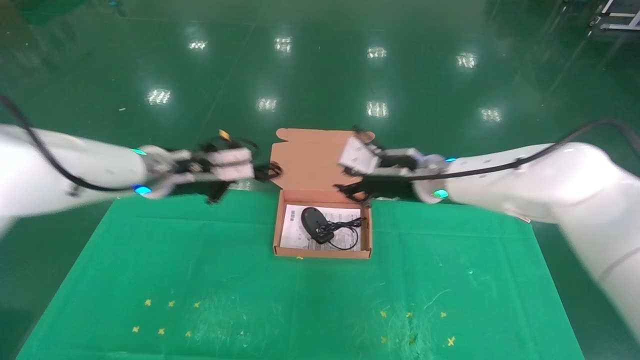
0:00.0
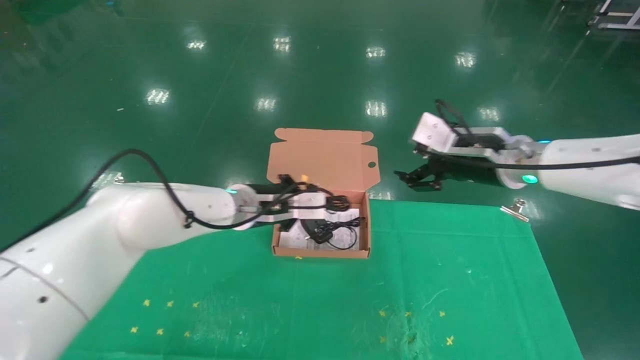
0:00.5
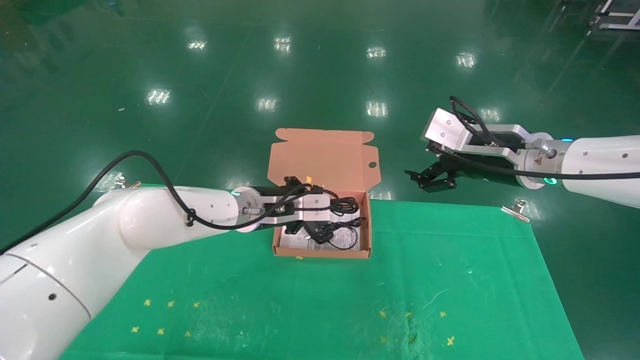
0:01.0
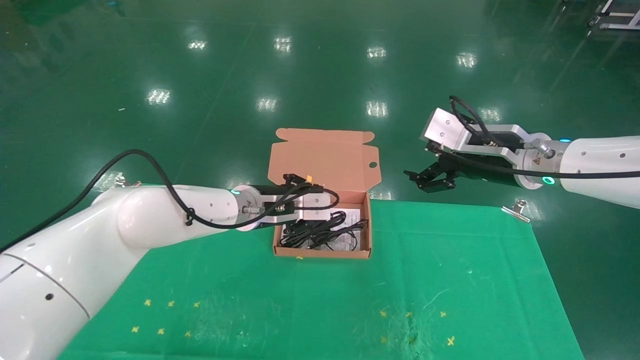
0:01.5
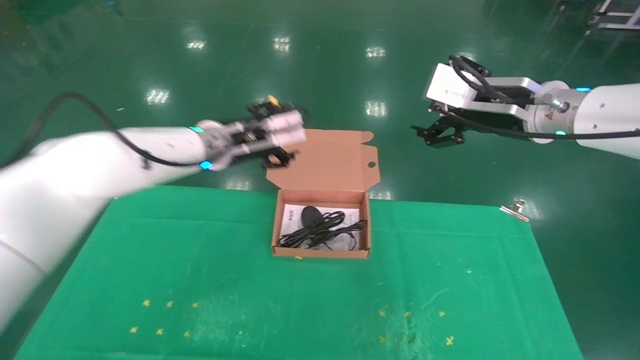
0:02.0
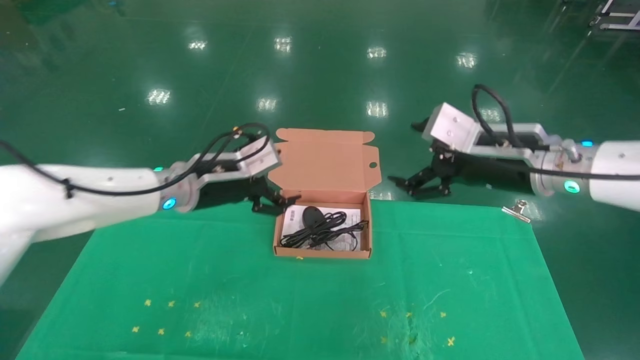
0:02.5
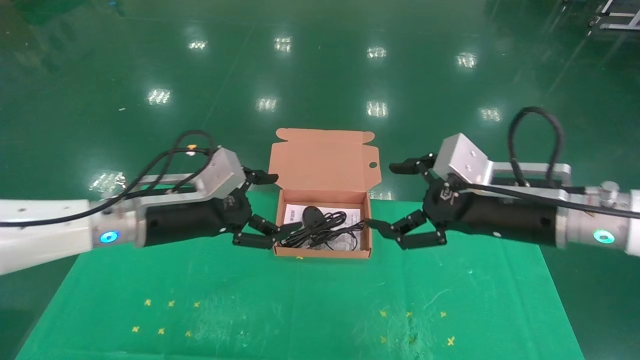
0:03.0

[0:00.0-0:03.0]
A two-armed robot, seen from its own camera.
Task of the whole recording: grasp data cable left put into box grasp mouse right put into box.
Step, 0:00.0 to 0:02.0: Place the mouse and power cord into the box.
0:00.0 to 0:01.5: The left gripper travels to the right by about 10 cm, while the right gripper goes some 15 cm to the right, backward and upward, and opens up.
0:01.5 to 0:03.0: The right gripper shifts some 10 cm backward and downward; the left gripper goes roughly 15 cm to the left and backward, and opens its fingers.

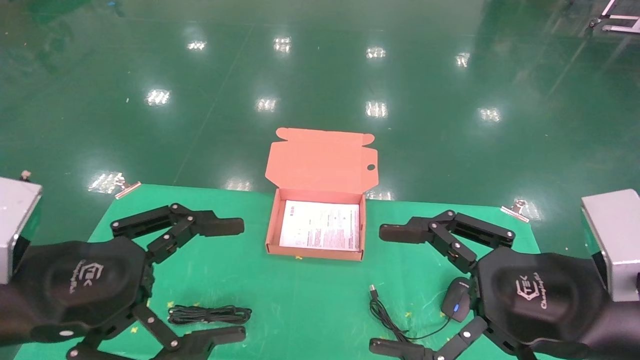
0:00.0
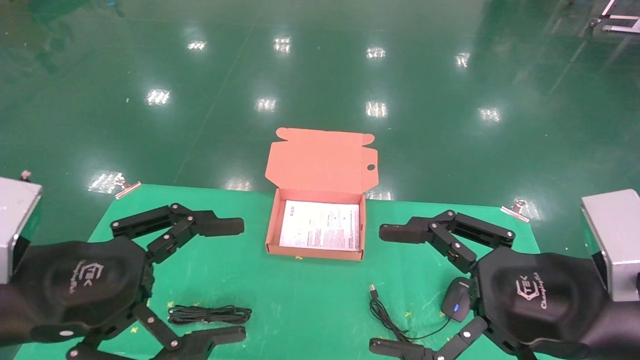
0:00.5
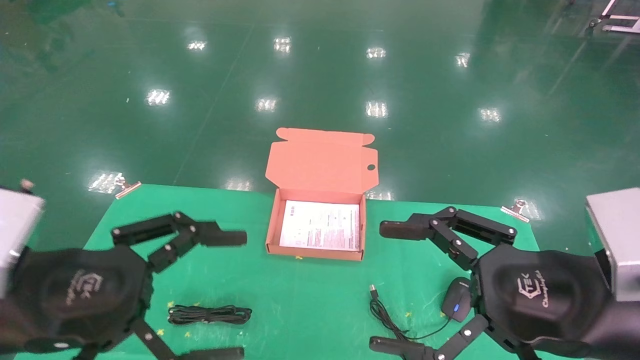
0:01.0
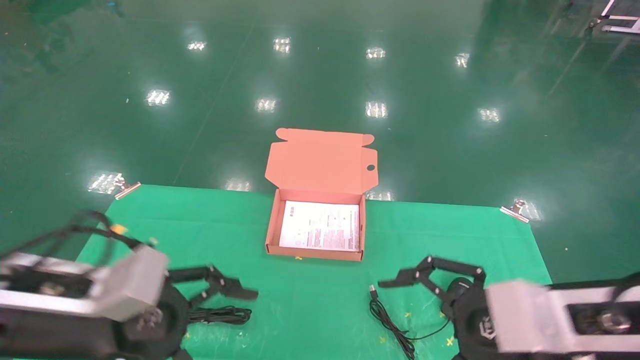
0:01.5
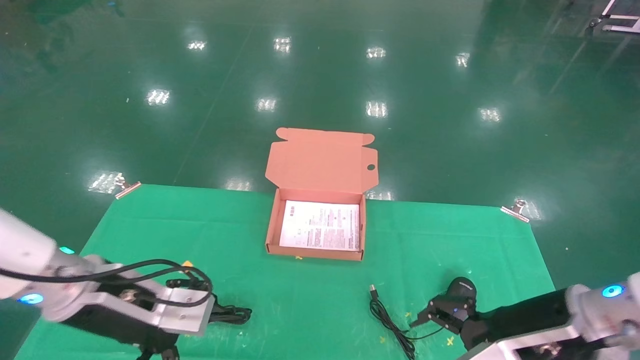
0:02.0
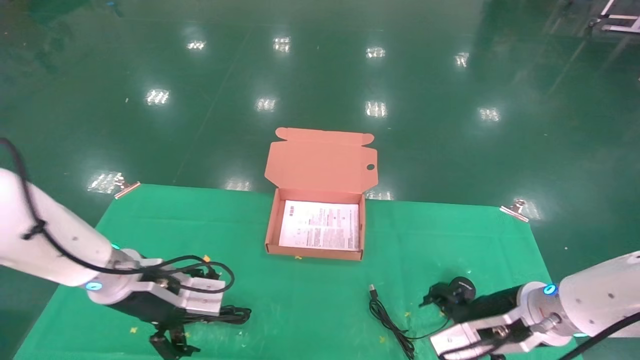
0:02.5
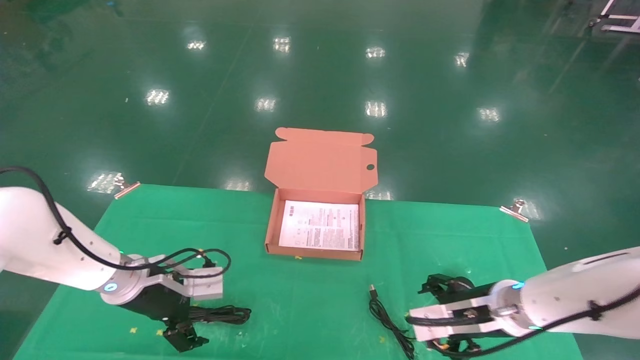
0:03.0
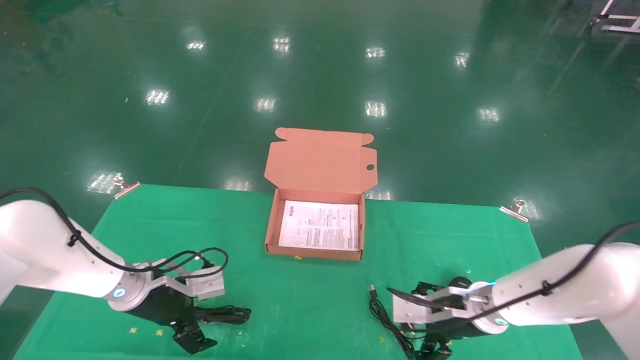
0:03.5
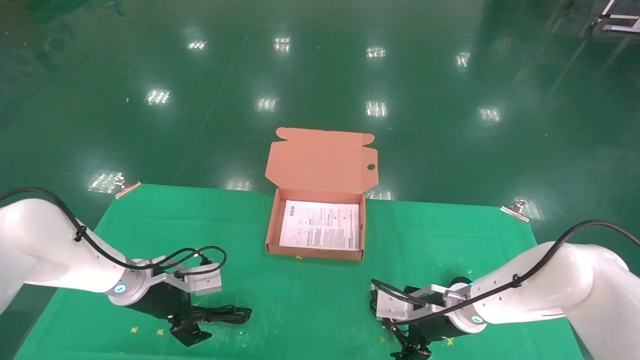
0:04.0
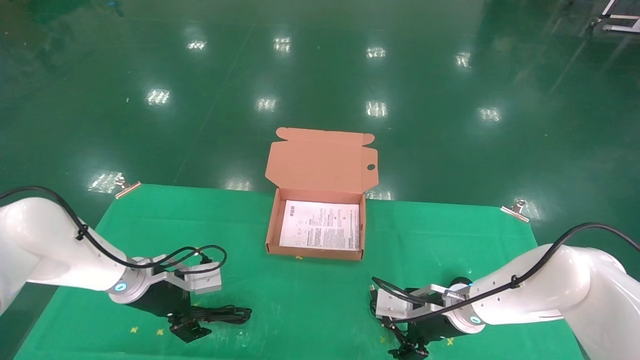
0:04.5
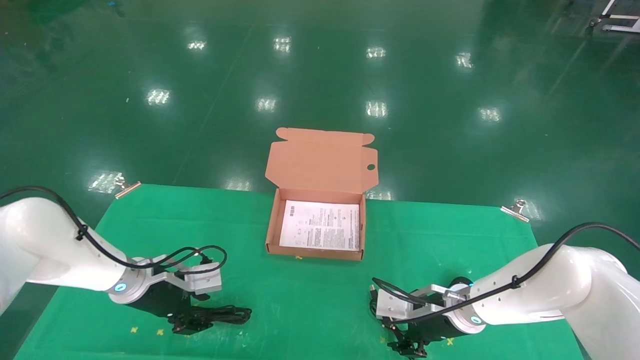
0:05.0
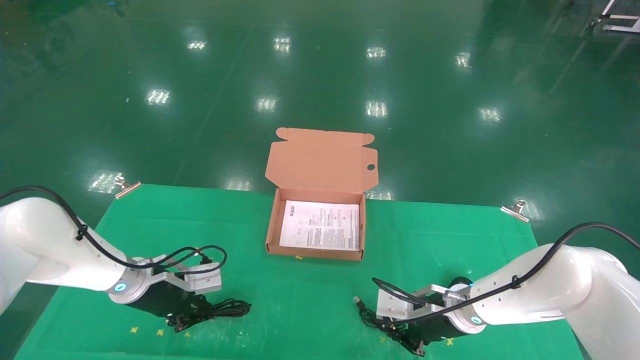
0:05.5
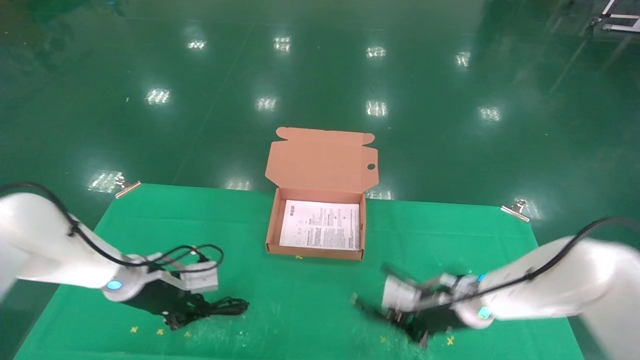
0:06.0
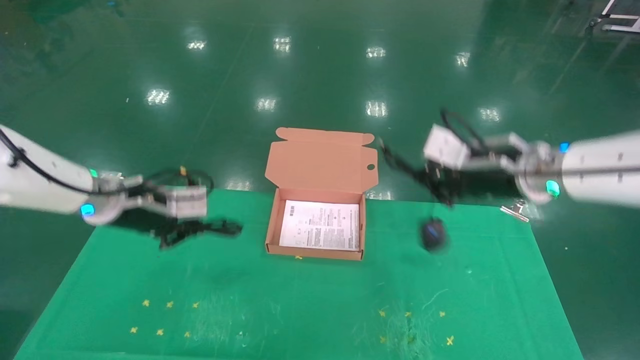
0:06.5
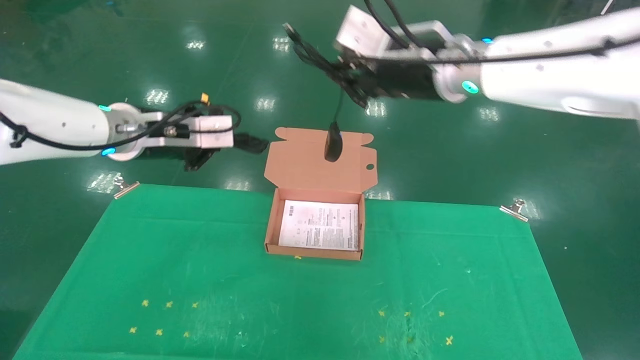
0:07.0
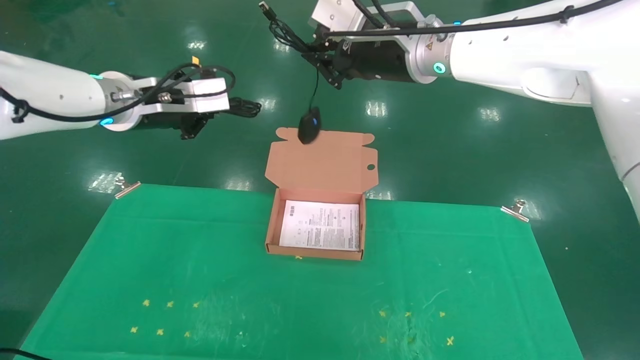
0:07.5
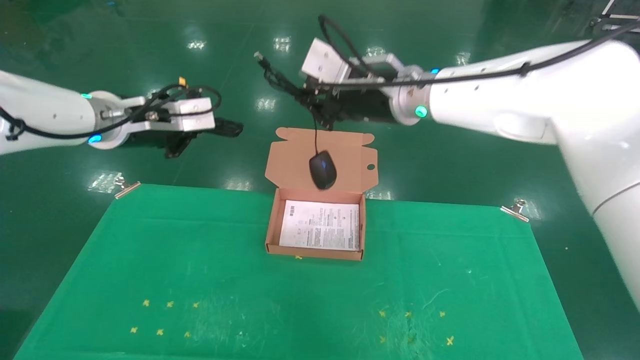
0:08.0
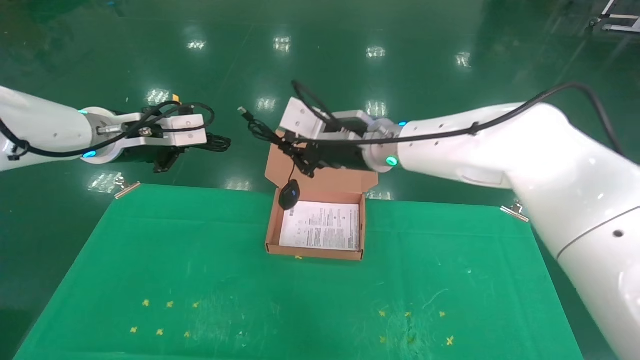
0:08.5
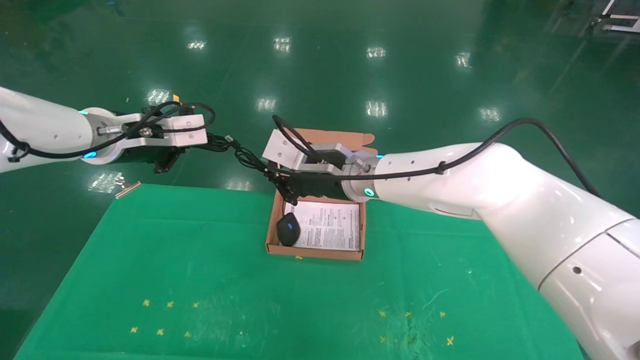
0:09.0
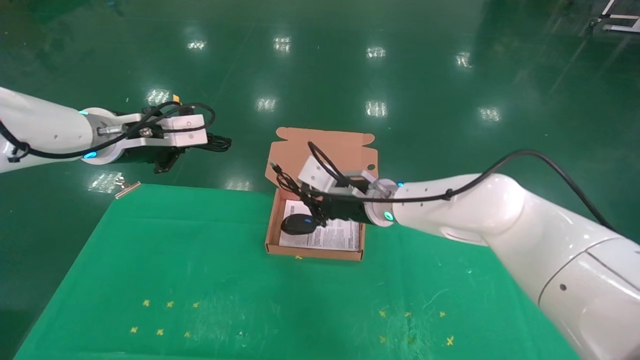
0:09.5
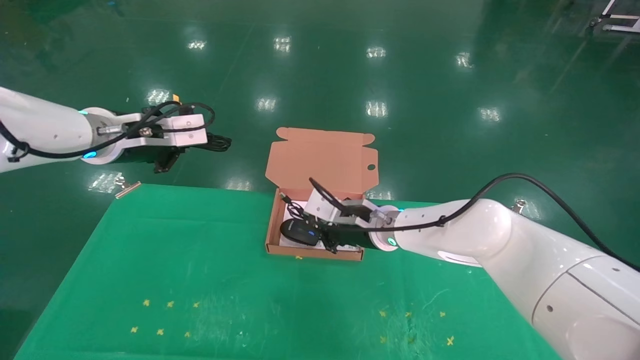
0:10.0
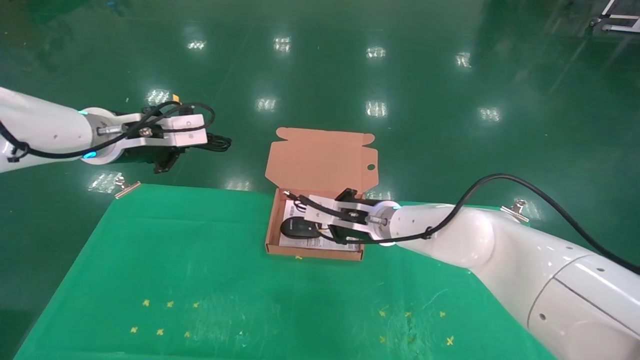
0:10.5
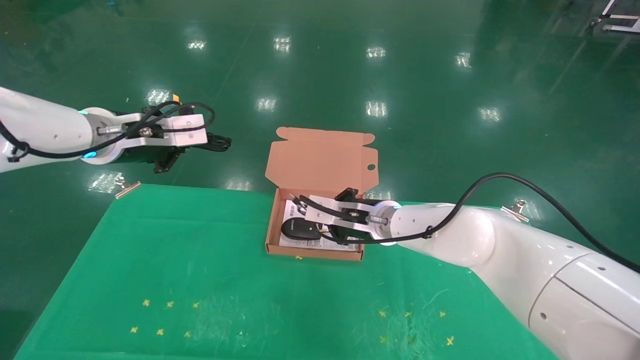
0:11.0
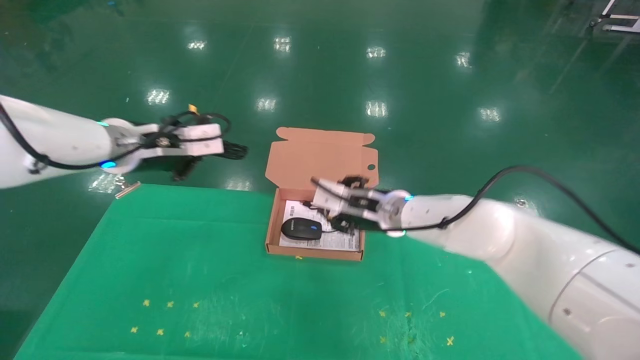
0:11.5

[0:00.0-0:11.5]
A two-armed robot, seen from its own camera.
Task of the whole recording: grasp data cable left put into box grasp mouse right put into box.
Step, 0:01.0 to 0:06.0: Grab and pick up both the mouse and power cord from the accessory packaging area at the same time.
0:00.0 to 0:02.0: Both grippers move forward and downward, roughly 10 cm.
0:02.0 to 0:04.0: Both grippers move forward and downward, some 15 cm.
0:04.0 to 0:06.0: The right gripper closes; the left gripper closes its fingers.
0:06.0 to 0:07.5: Both grippers move upward, about 30 cm.
0:07.5 to 0:09.5: The right gripper heads downward, covering about 20 cm.
0:09.5 to 0:11.5: The right gripper opens up.

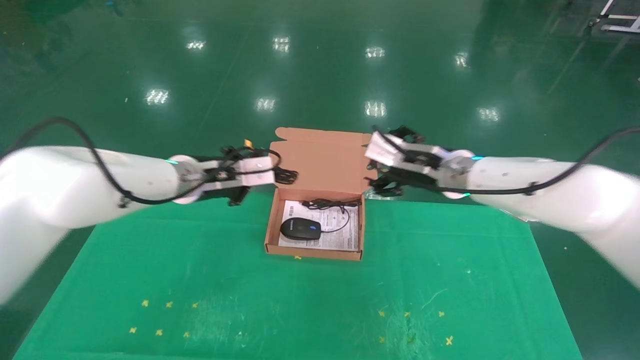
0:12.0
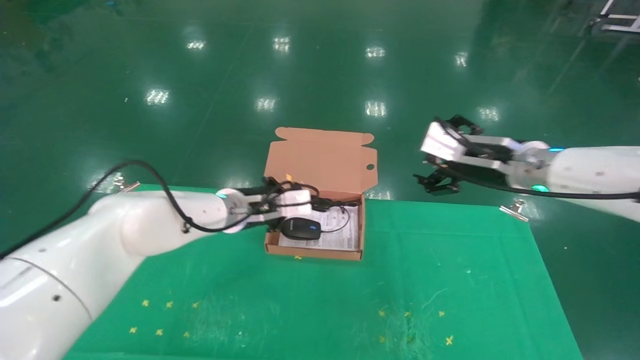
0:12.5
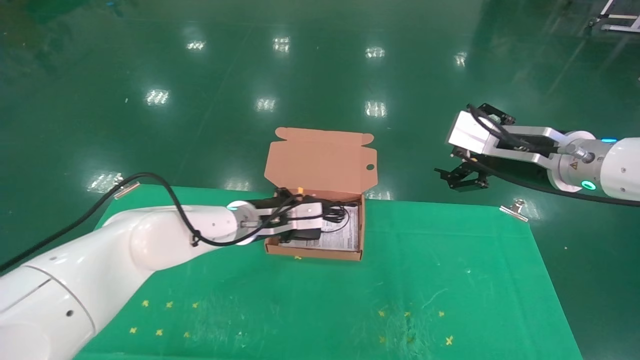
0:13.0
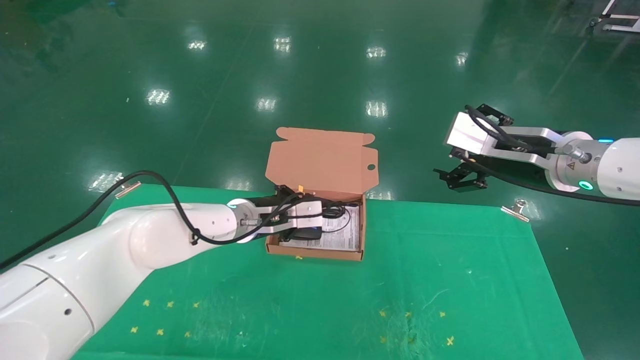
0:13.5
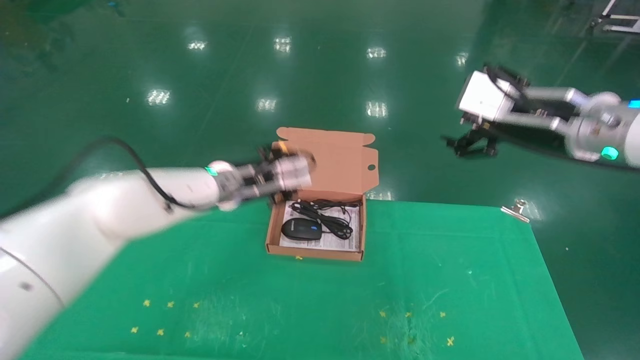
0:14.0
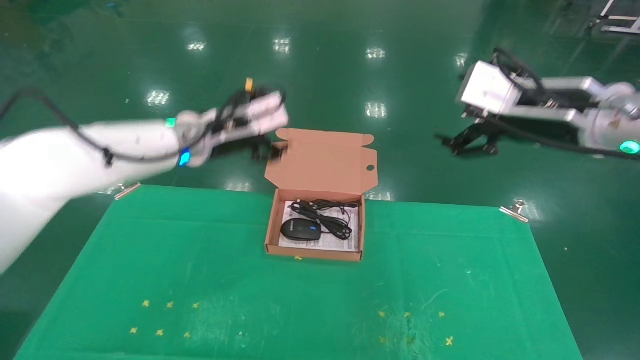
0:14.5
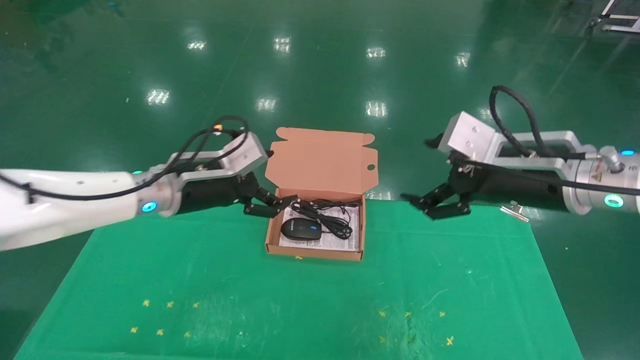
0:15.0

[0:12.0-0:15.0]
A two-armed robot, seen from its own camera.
Task of the whole recording: grasp data cable left put into box grasp mouse right put into box.
0:12.0 to 0:13.5: The left gripper shifts about 10 cm downward and to the right, while the right gripper heads to the right and backward, covering roughly 10 cm.
0:13.5 to 0:15.0: The left gripper travels to the left, backward and upward by roughly 15 cm, and opens its fingers. The right gripper goes about 5 cm backward.
